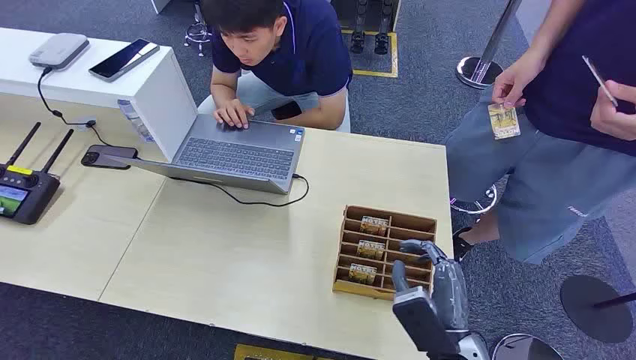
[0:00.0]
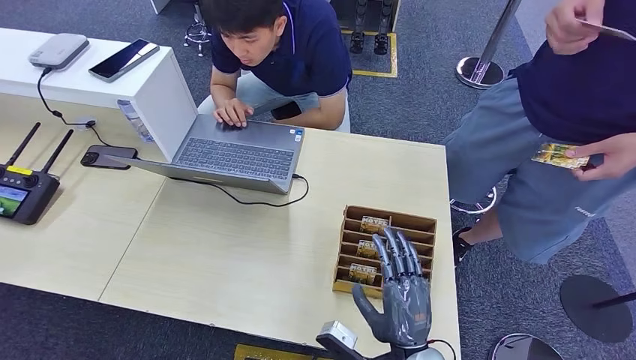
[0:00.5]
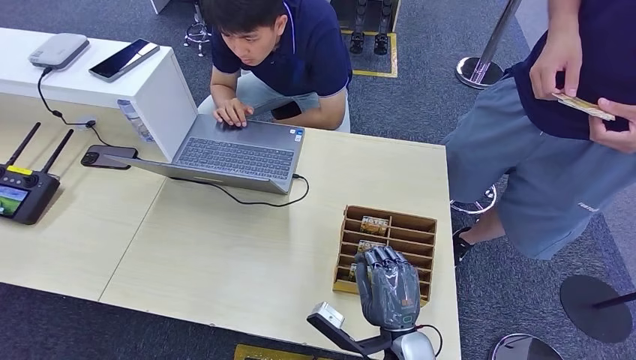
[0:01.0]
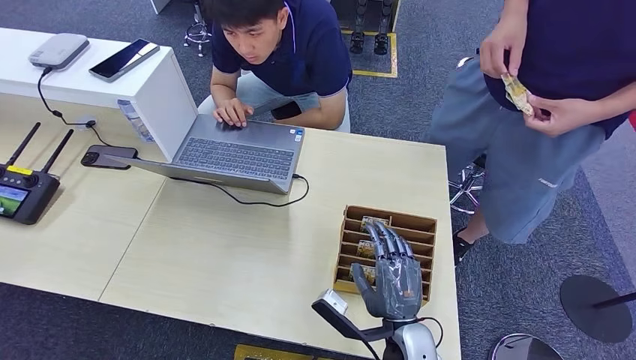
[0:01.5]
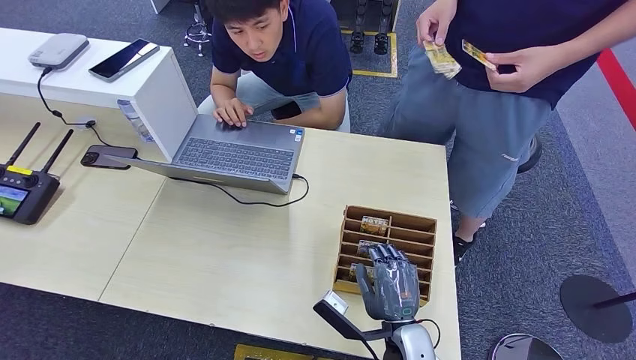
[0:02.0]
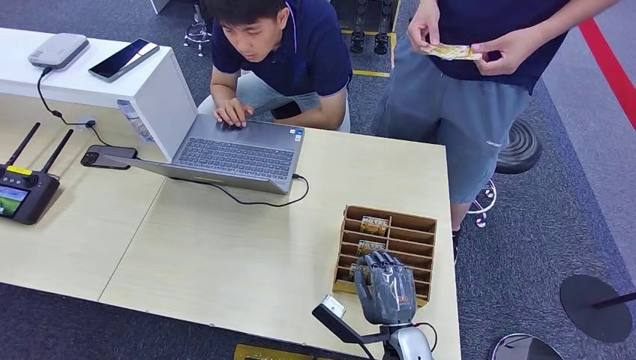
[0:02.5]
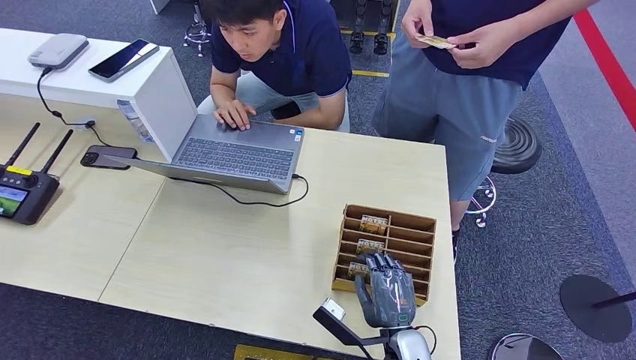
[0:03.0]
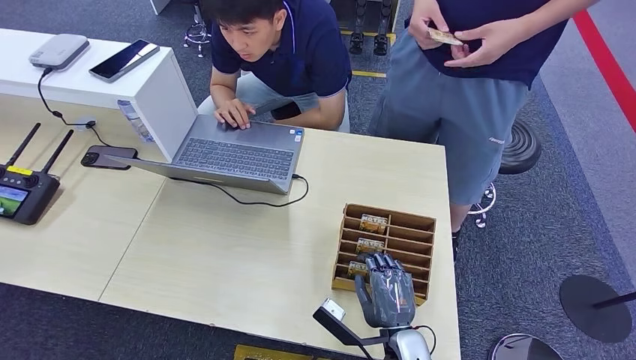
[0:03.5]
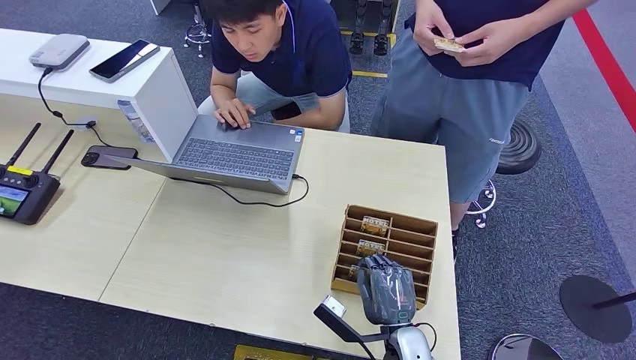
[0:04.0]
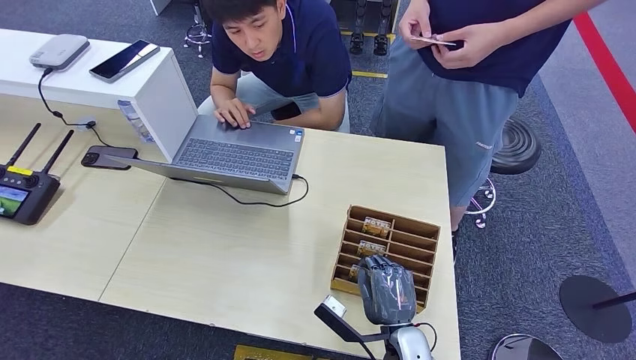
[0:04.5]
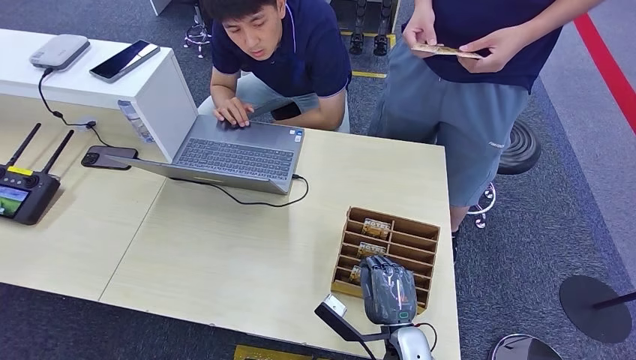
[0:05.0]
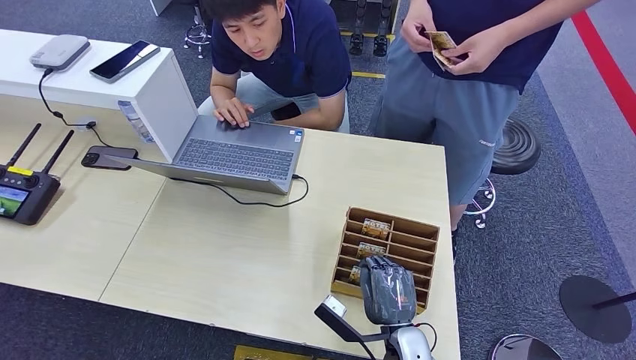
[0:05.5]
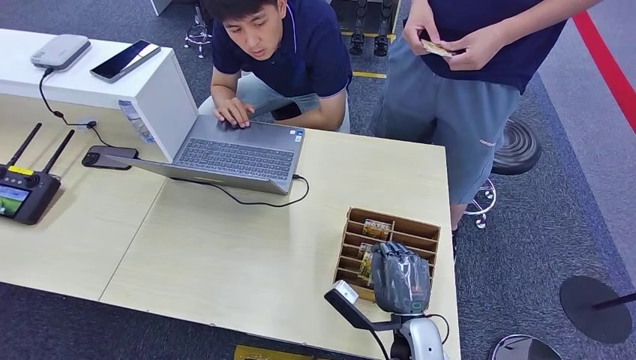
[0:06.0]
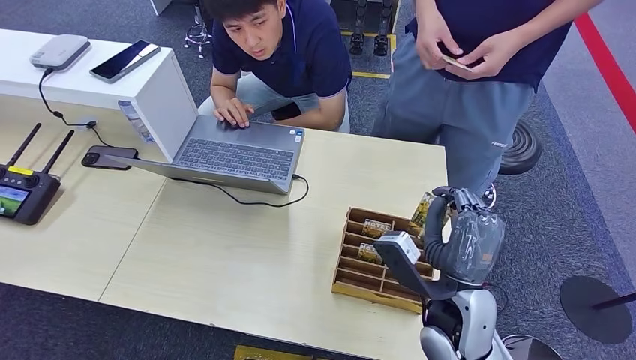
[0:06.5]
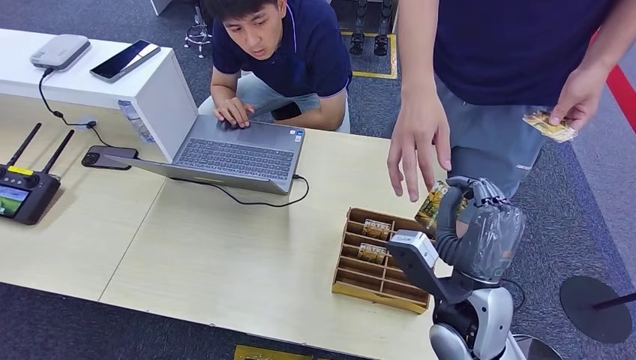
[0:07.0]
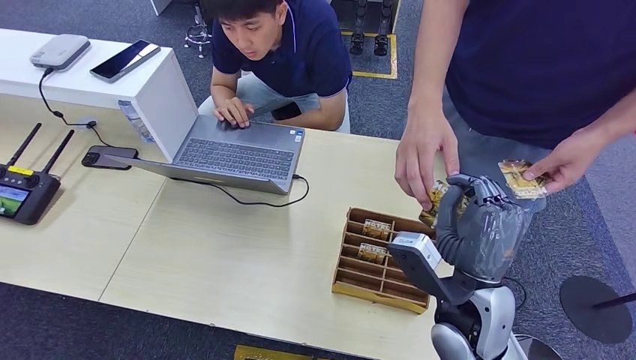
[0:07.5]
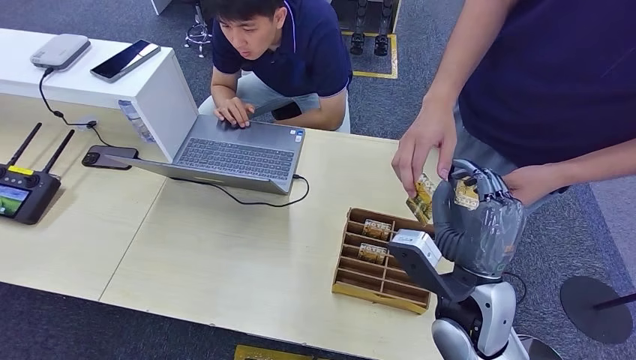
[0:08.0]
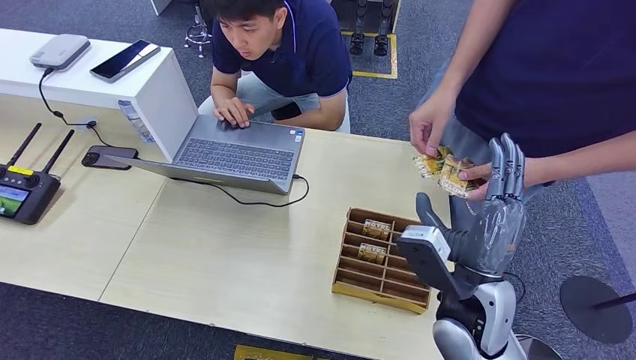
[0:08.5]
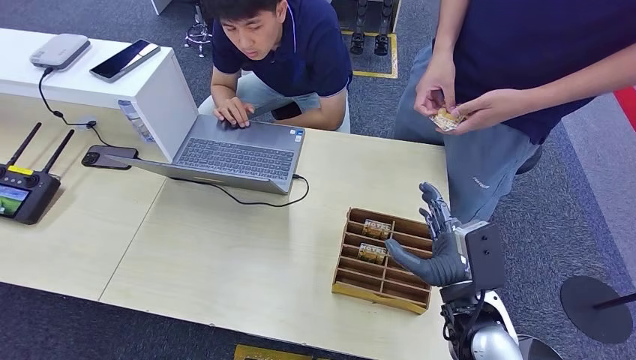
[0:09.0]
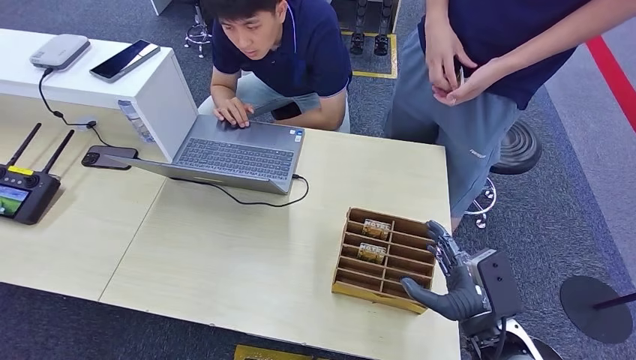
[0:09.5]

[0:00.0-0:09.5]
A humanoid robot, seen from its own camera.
Step, 0:00.0 to 0:06.5: Pick up the key card from the card box.
Step, 0:07.0 to 0:09.5: Hand the key card to the target.
0:02.0 to 0:05.5: The two hands keep their place.
0:07.5 to 0:09.5: The right hand moves to the right and downward, roughly 10 cm.

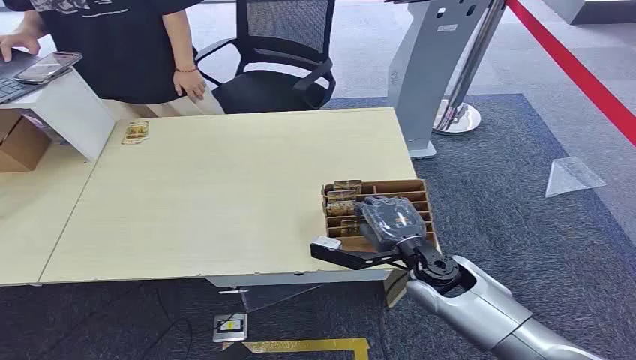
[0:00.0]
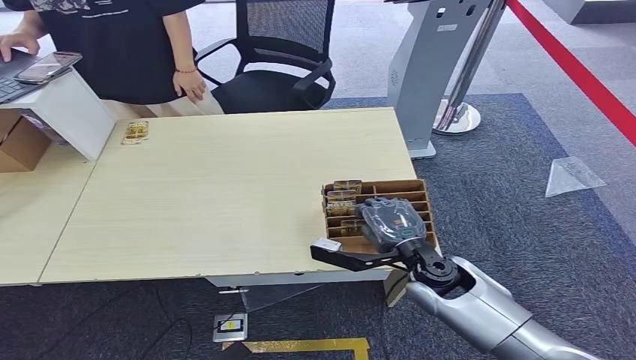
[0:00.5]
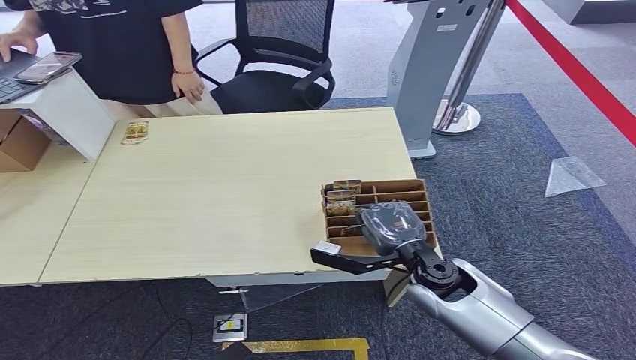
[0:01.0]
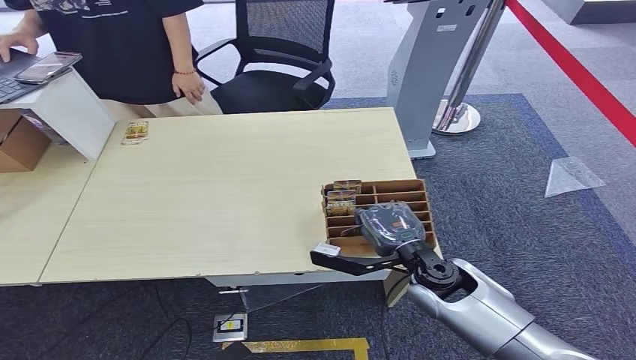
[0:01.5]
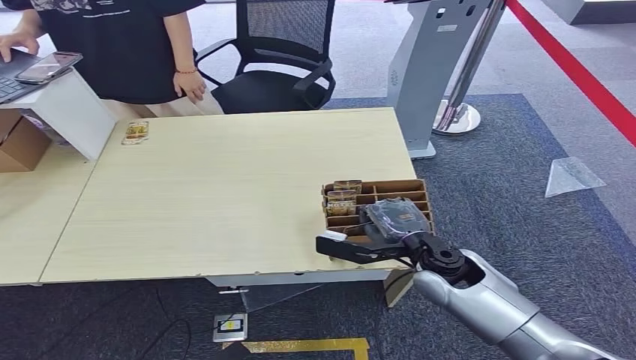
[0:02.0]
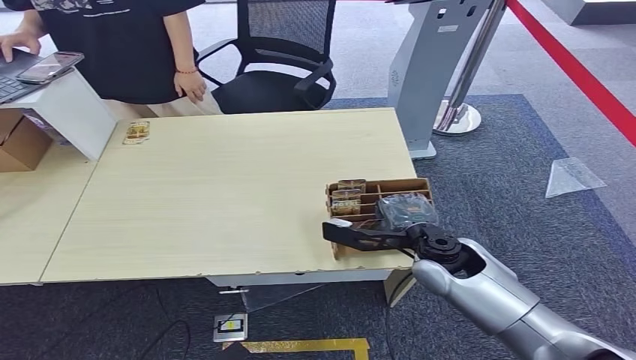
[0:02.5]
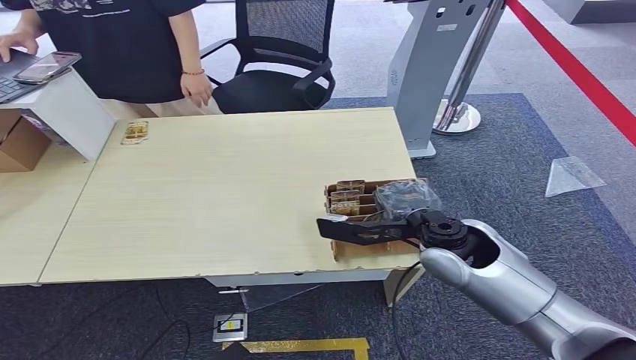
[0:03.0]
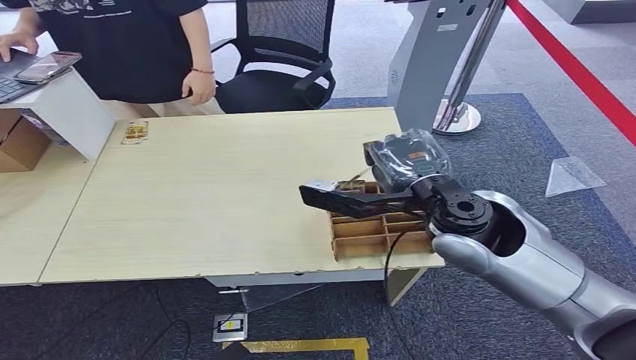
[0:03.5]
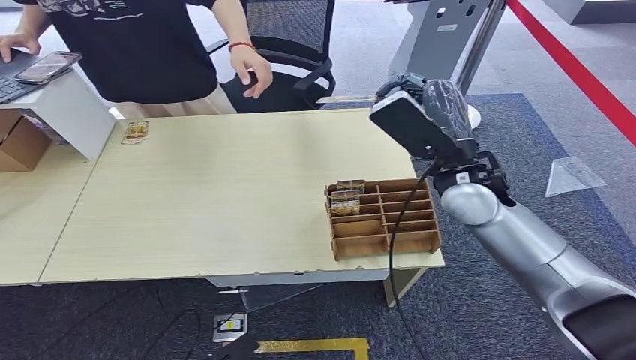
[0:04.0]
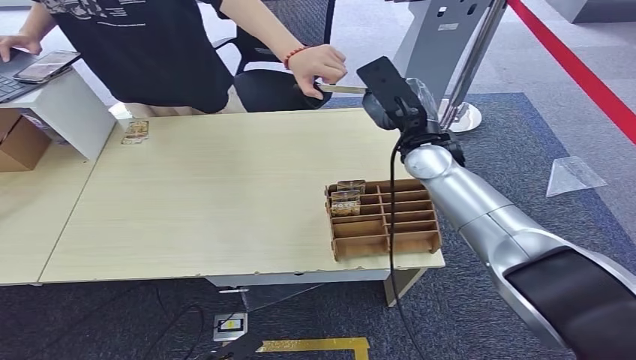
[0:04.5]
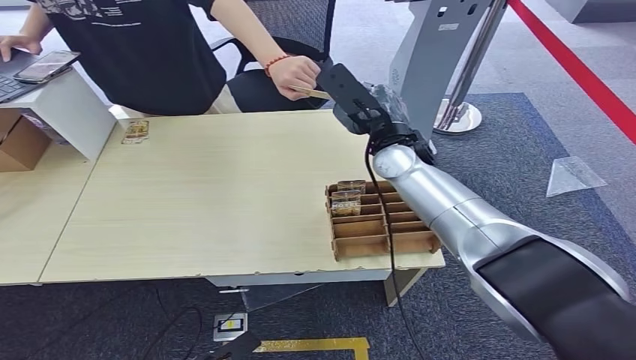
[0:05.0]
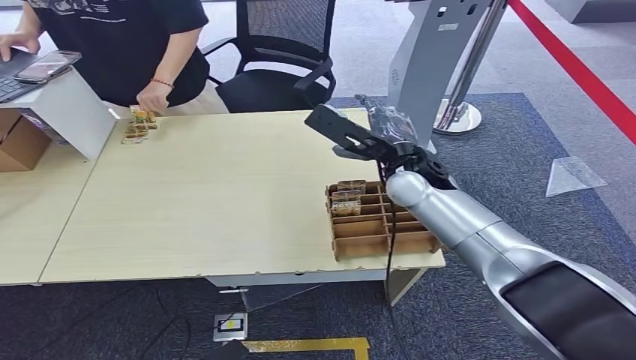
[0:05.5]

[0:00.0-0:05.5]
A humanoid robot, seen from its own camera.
Step, 0:00.0 to 0:03.5: Pick up the key card from the card box.
Step, 0:04.0 to 0:05.5: Hand the key card to the target.
0:02.0 to 0:03.5: The right hand travels upward by about 15 cm.
0:03.5 to 0:05.5: The right hand heads forward, covering approximately 10 cm.
